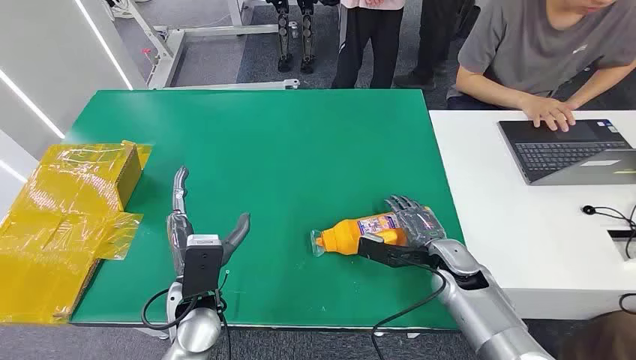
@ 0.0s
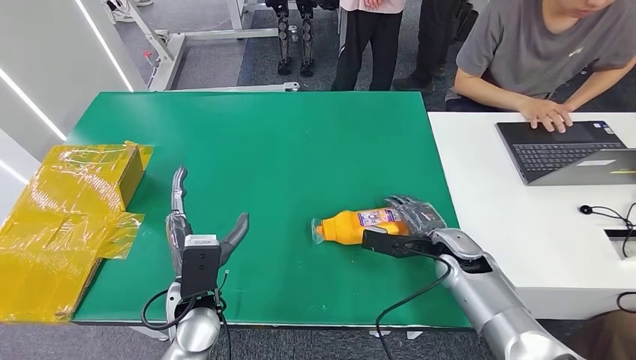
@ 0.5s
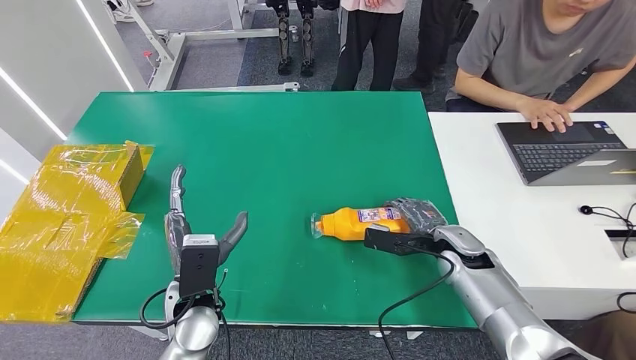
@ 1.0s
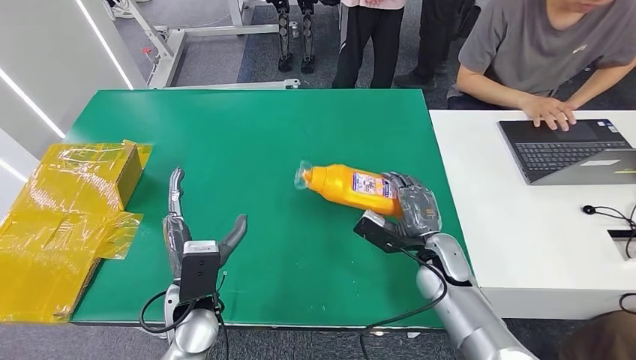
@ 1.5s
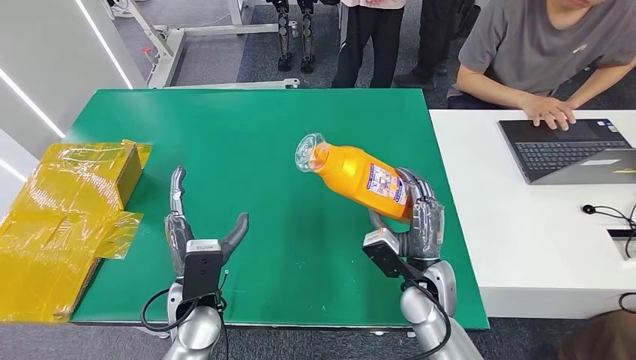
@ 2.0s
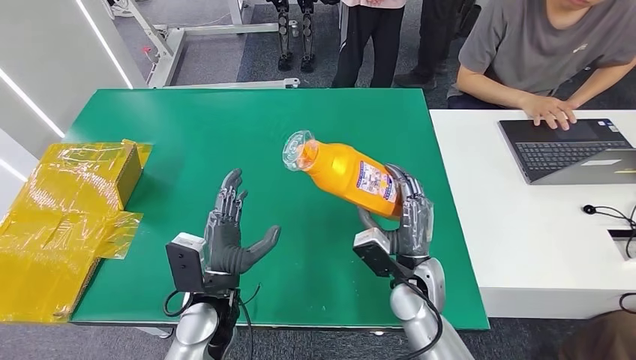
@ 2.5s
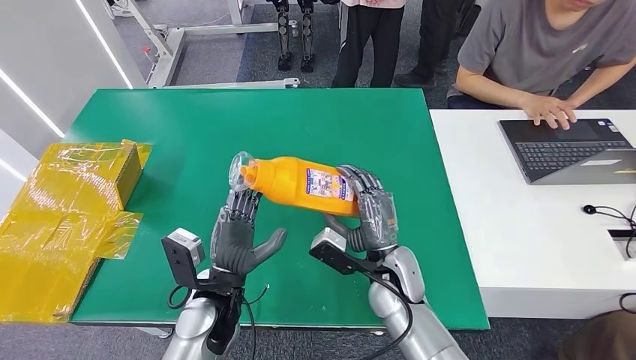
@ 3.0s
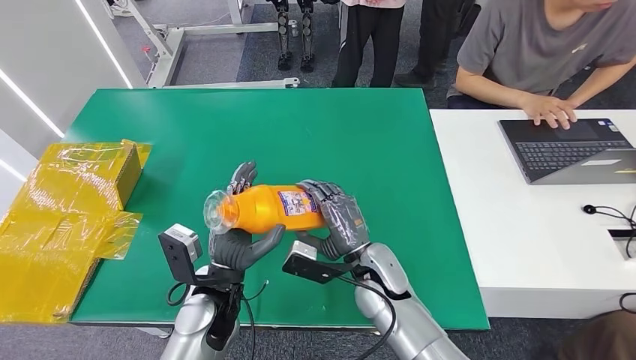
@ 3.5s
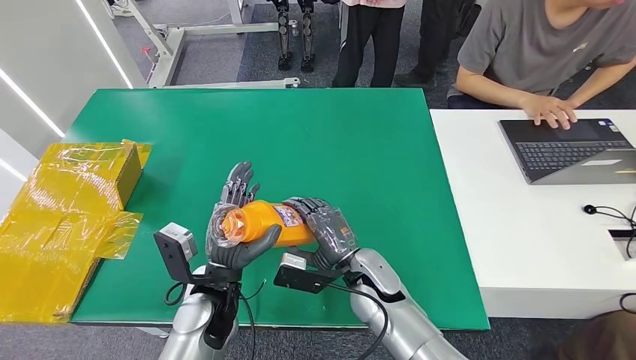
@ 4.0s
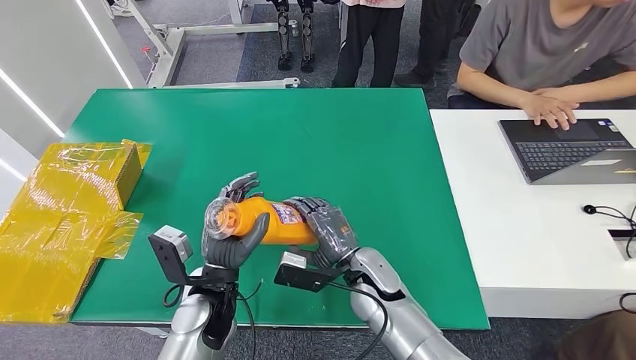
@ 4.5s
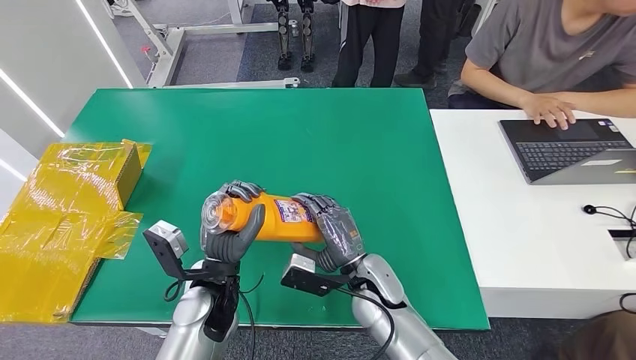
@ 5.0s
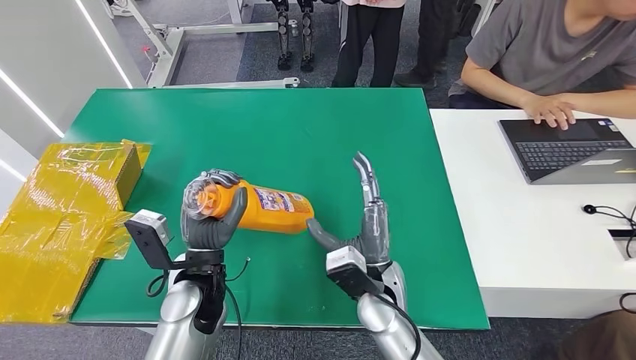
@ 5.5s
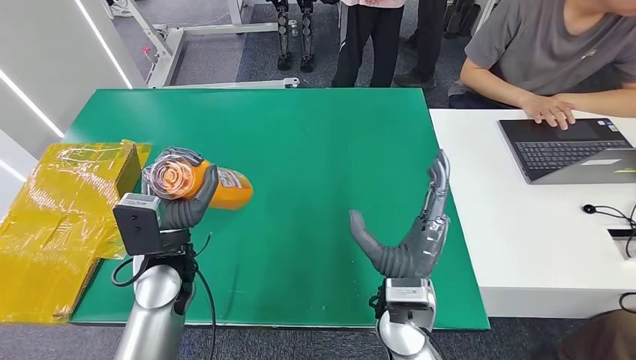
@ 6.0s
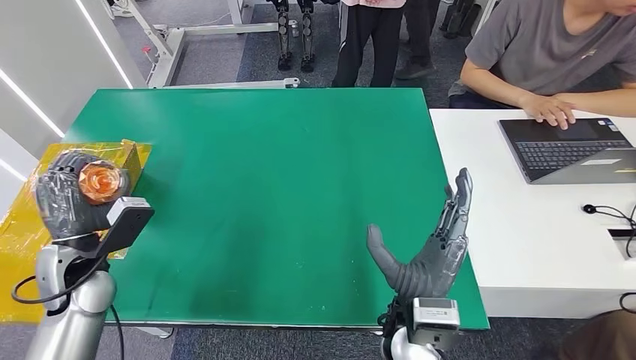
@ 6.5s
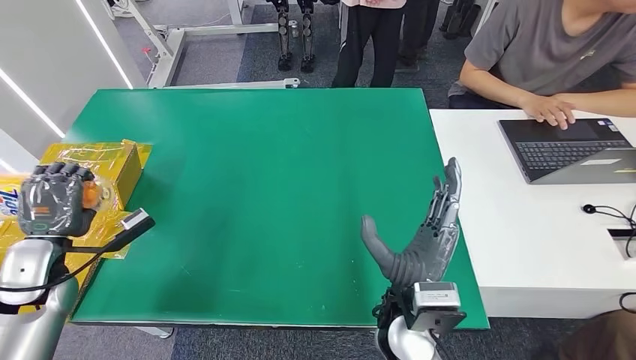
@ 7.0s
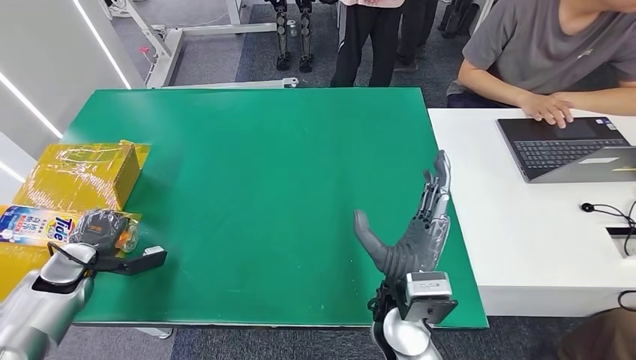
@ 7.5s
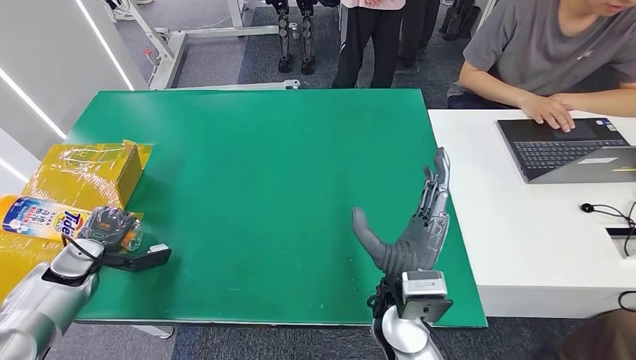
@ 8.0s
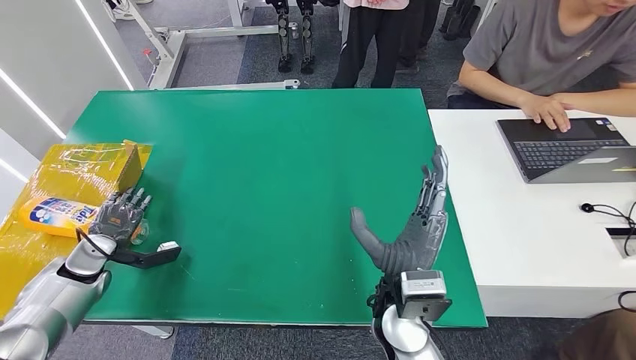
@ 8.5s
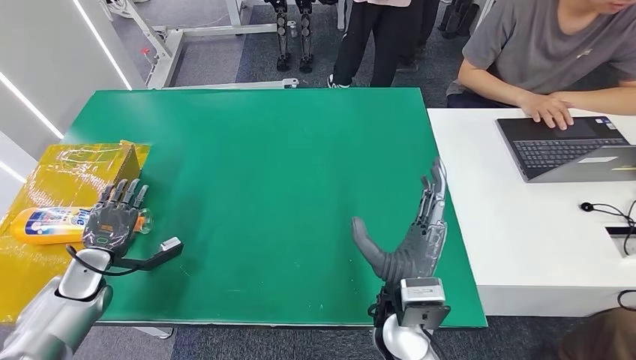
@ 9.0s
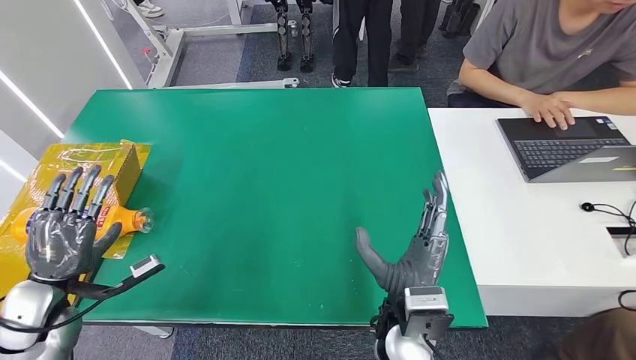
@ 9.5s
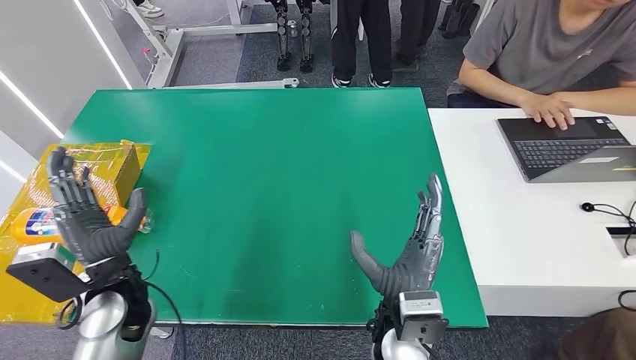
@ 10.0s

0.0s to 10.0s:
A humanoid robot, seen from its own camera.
Step, 0.0s to 2.0s: Pick up the bottle from the table.
Step, 3.0s to 10.0s: Turn the bottle to the front side.
2.0s to 4.0s: The right hand heads to the left, covering about 10 cm.
4.0s to 6.0s: The left hand is displaced to the left by about 5 cm; the right hand is displaced upward and backward by approximately 10 cm.
6.0s to 8.0s: The left hand travels to the left and downward by approximately 30 cm.
8.0s to 10.0s: The left hand heads to the right, upward and backward, covering about 20 cm.
